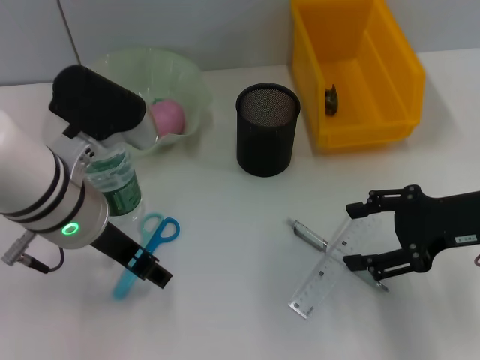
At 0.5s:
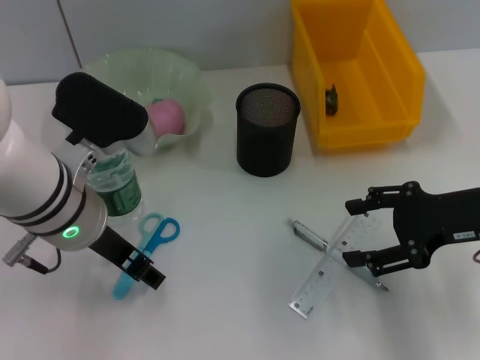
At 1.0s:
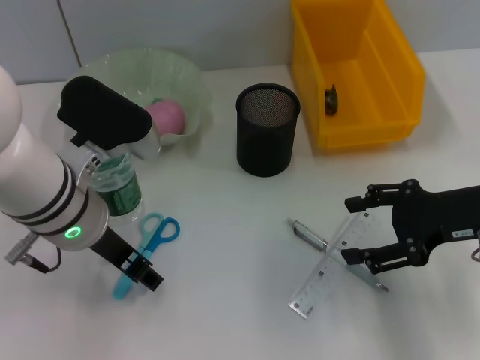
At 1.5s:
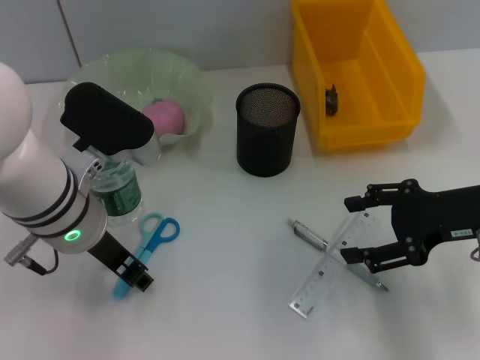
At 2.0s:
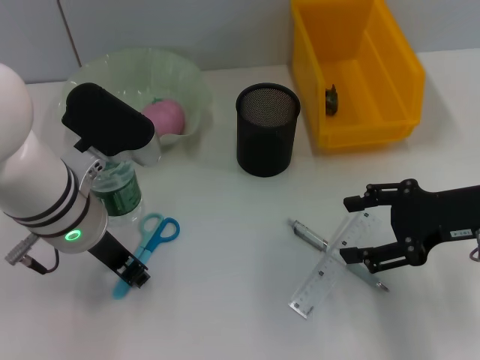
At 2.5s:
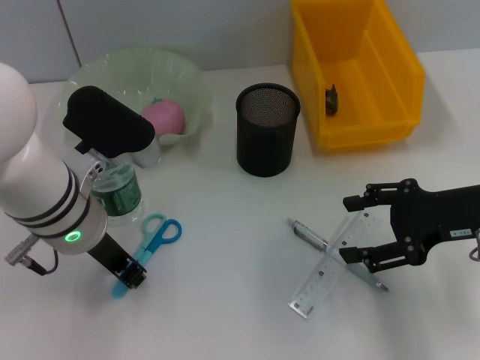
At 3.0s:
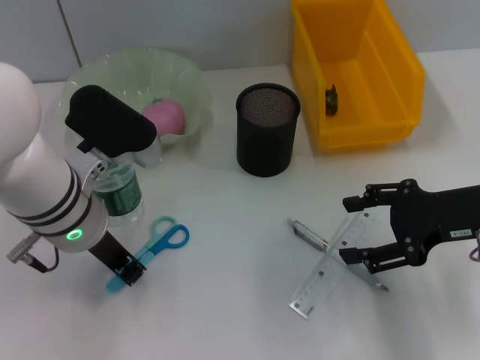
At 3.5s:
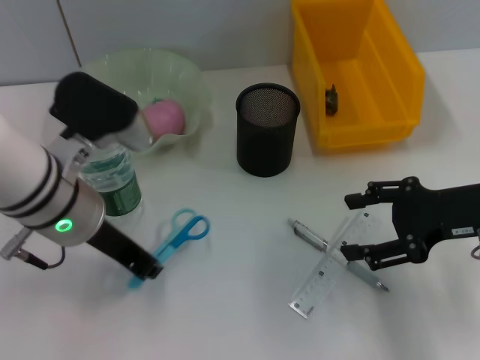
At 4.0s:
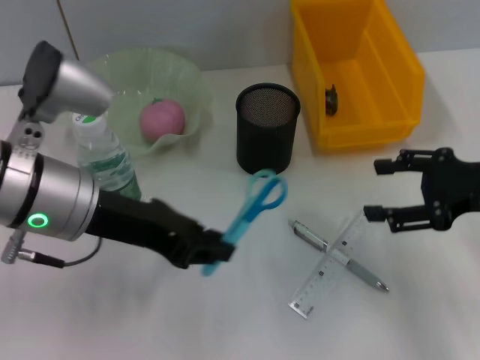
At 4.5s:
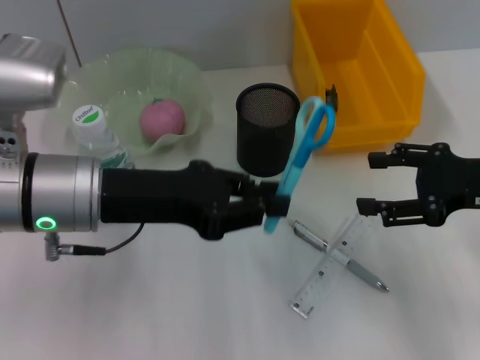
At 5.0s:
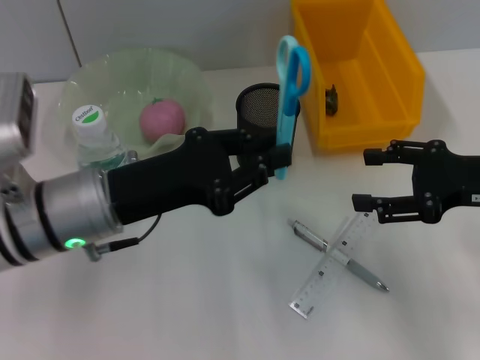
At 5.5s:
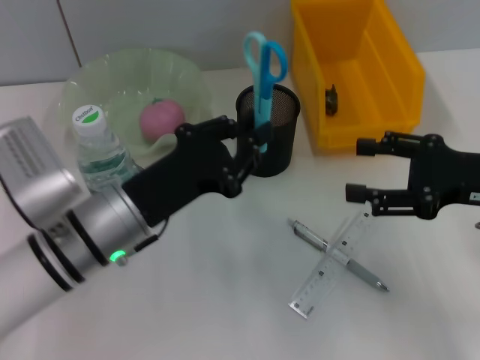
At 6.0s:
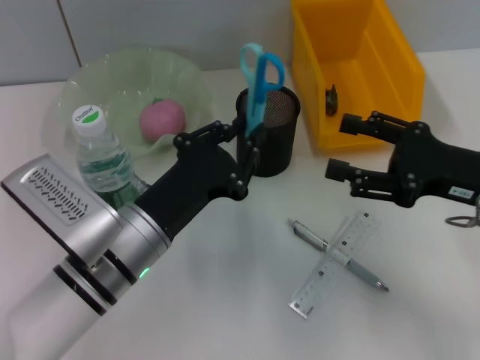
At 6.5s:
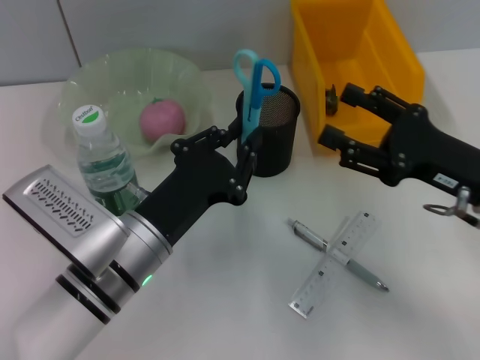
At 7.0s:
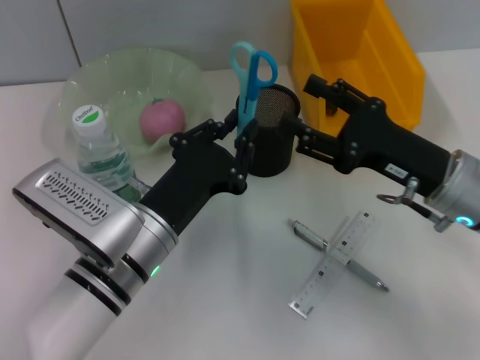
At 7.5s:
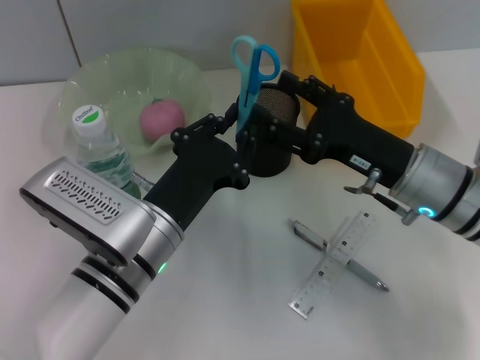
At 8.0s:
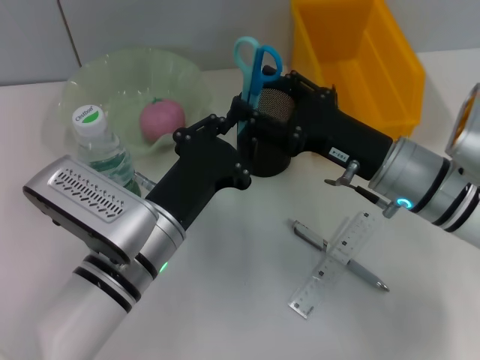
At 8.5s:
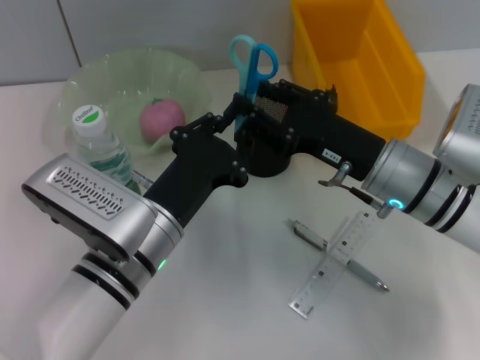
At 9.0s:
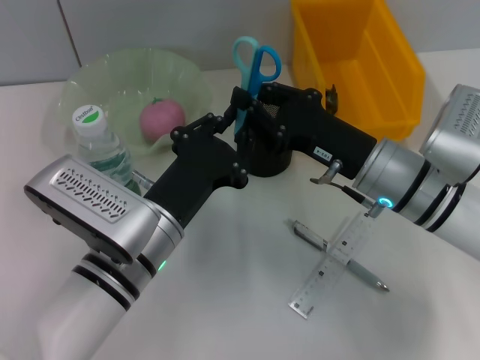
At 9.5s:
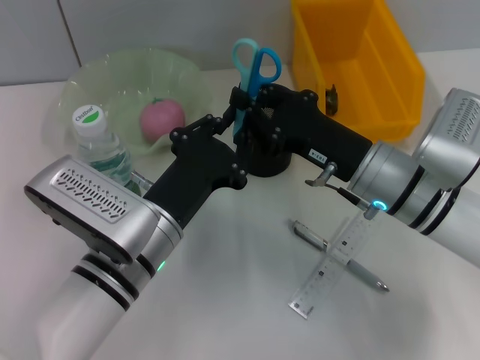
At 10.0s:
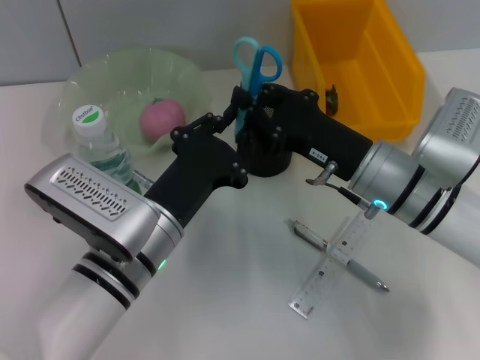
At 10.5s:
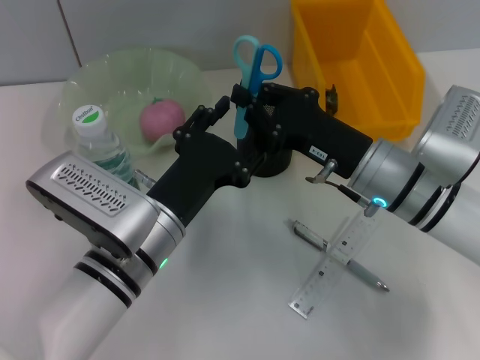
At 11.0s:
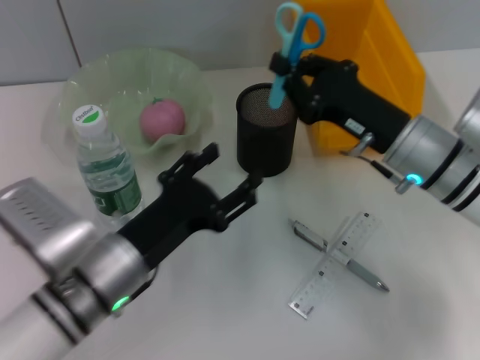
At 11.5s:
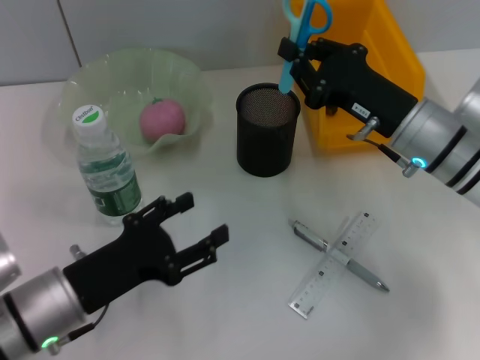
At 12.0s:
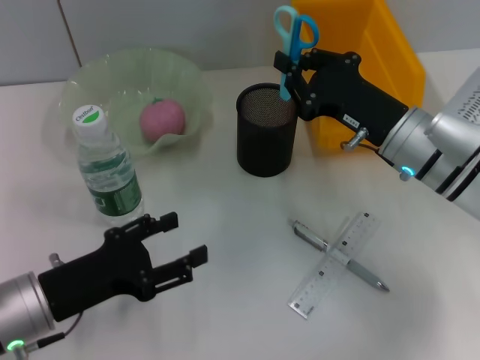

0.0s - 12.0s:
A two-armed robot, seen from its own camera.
Step, 0.0s - 3.0s: Grab the blue scissors with the left hand.
Step, 3.5s - 10.0s: Pass the blue scissors from the left hand to the right hand.
0.0s - 2.0s: The left gripper closes up.
2.0s - 4.0s: The left gripper closes up.
4.0s - 6.0s: The left gripper is displaced downward by about 10 cm.
6.0s - 8.0s: The right gripper is displaced to the left by about 10 cm.
8.0s - 10.0s: The right gripper closes up.
10.0s - 12.0s: The left gripper is displaced to the left by approximately 10 cm, and opens its fingers.

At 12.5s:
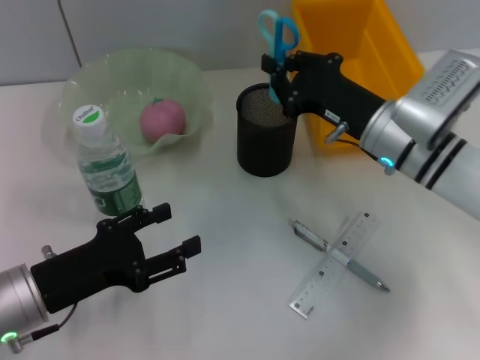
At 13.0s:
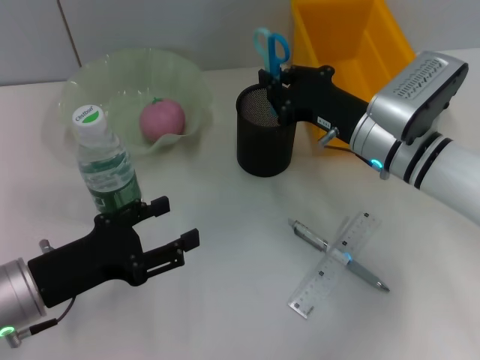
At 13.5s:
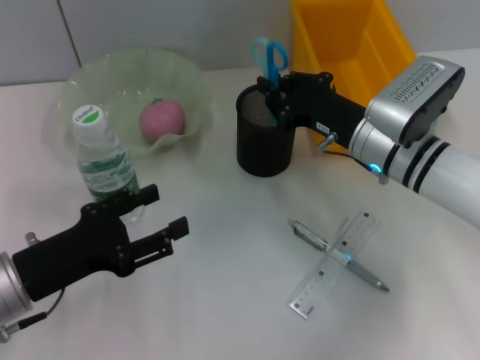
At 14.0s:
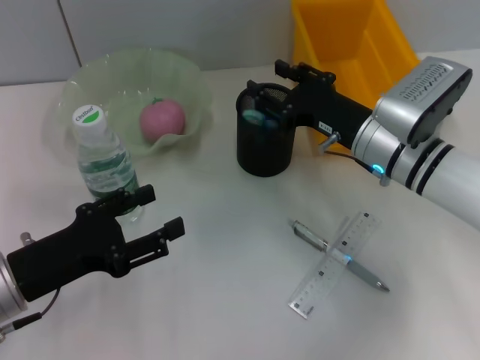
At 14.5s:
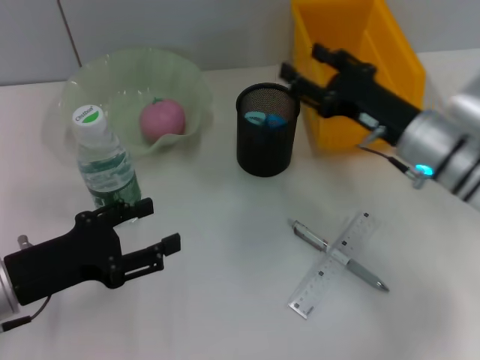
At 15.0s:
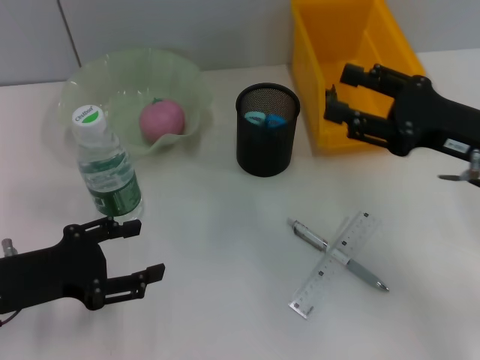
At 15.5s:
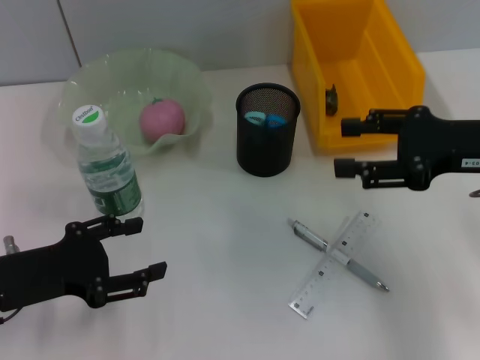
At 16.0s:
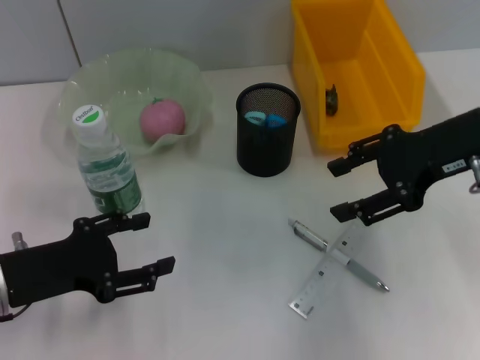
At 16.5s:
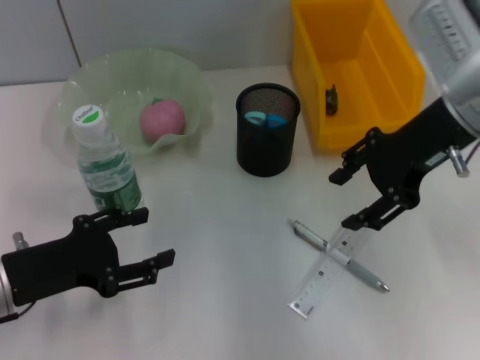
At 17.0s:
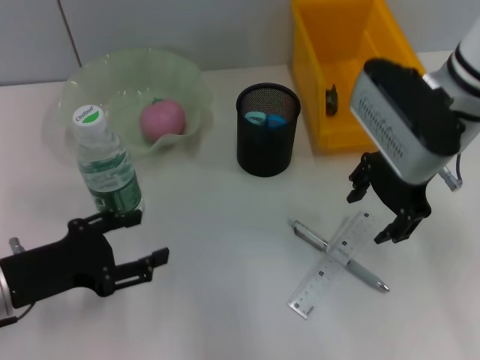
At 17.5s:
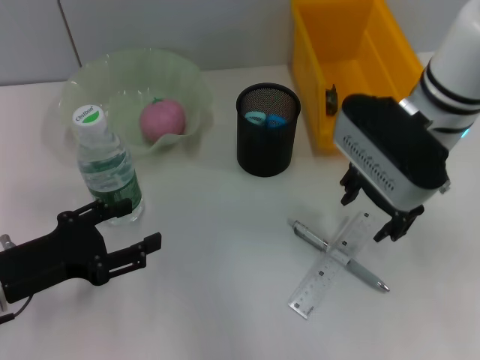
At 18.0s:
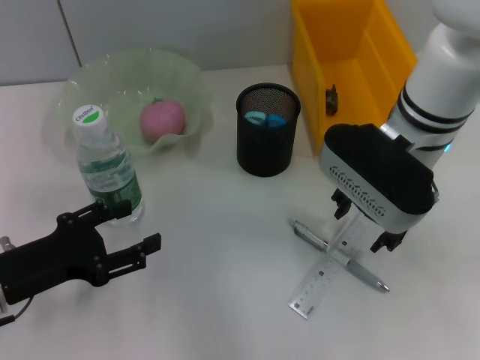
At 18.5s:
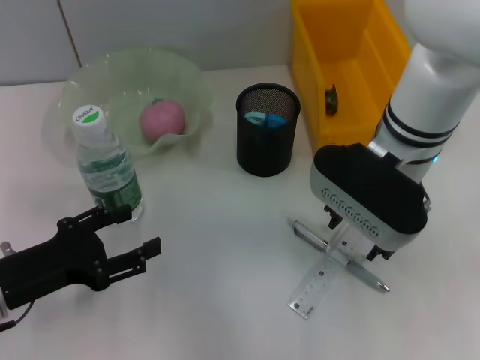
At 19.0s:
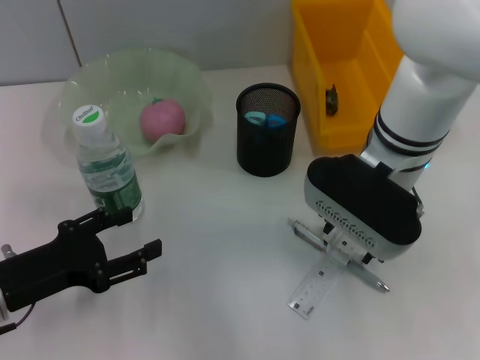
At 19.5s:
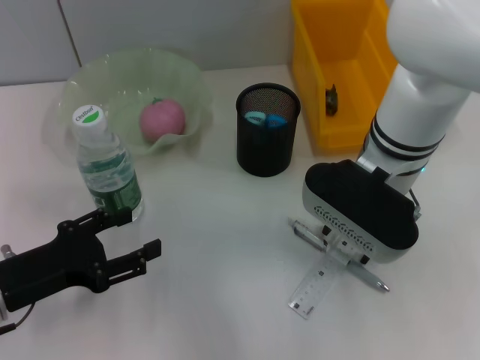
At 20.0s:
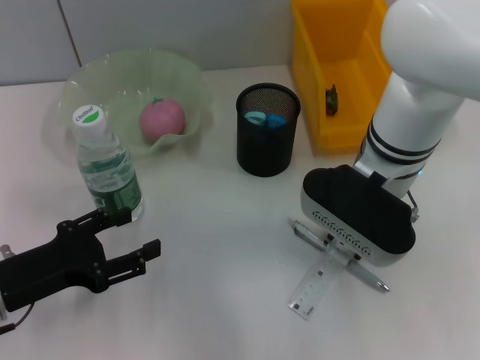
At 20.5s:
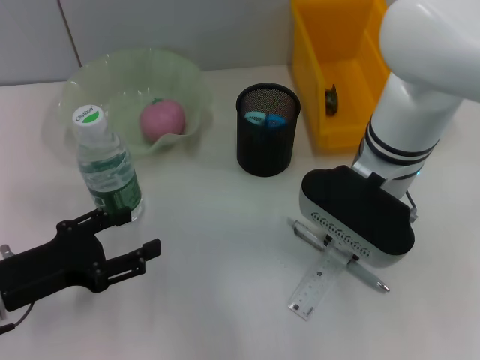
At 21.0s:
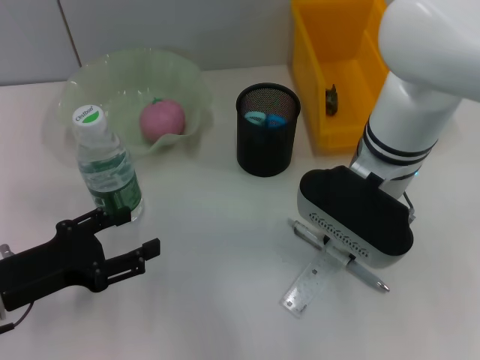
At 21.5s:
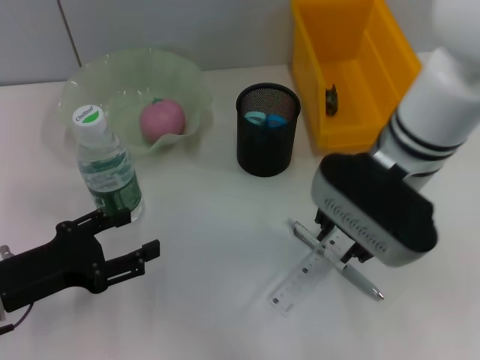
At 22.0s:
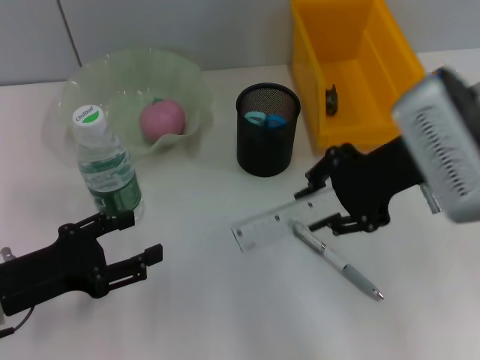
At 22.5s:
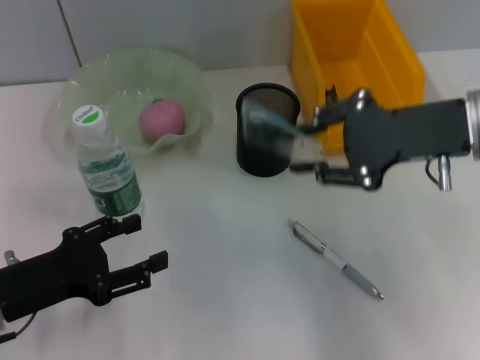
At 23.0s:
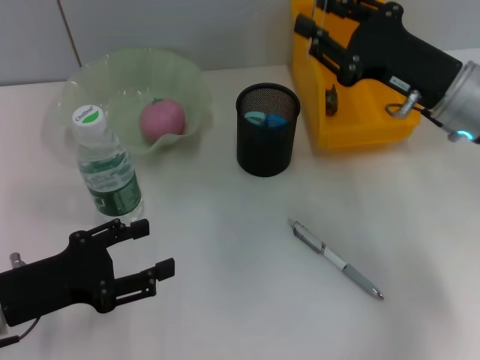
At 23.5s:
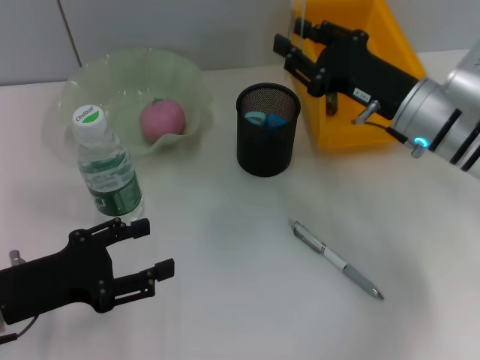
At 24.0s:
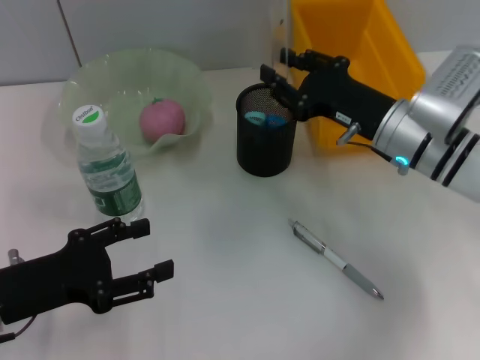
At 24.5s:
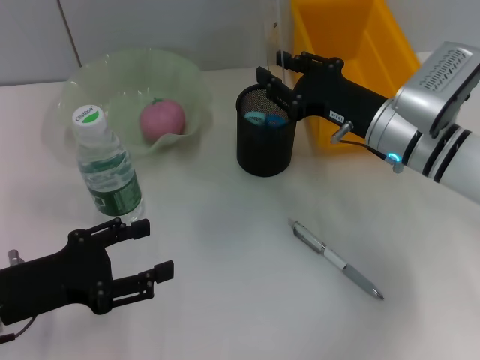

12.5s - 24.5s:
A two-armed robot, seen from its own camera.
Step, 14.0s - 20.5s: Grab the ruler with the right hand.
12.5s - 14.5s: The right gripper opens.
14.5s - 16.5s: The right gripper travels upward by about 15 cm.
16.5s - 18.5s: The right gripper shifts about 10 cm to the left and downward.
18.5s - 20.5s: The right gripper closes.
20.5s - 22.5s: The right gripper is displaced to the right and upward by approximately 10 cm.
22.5s - 24.5s: The right gripper is displaced downward and forward by about 10 cm.

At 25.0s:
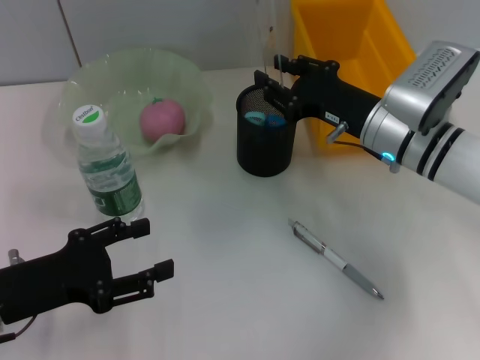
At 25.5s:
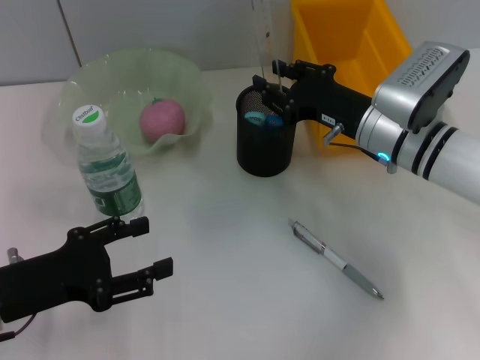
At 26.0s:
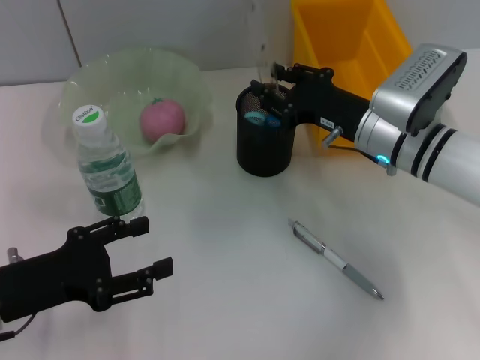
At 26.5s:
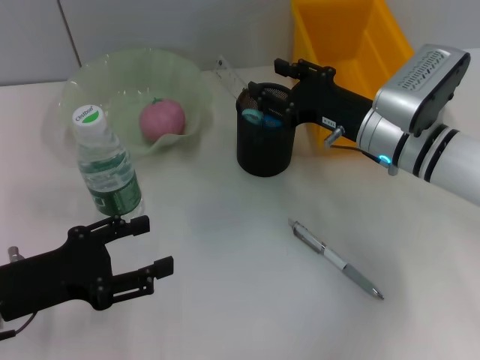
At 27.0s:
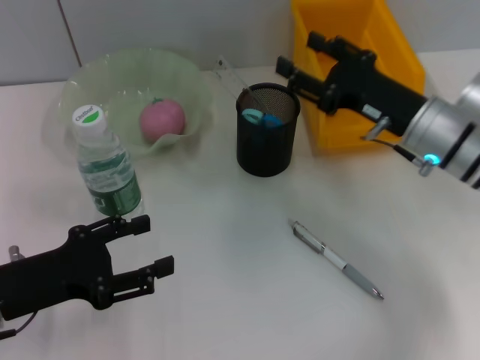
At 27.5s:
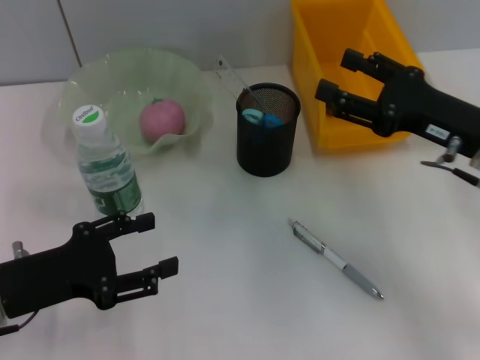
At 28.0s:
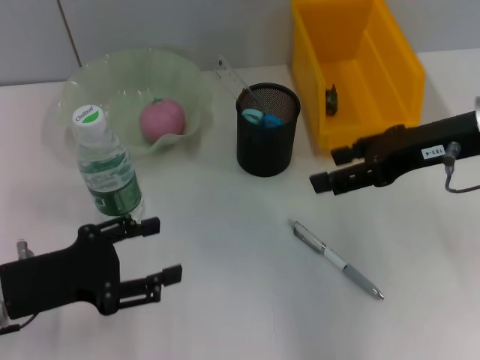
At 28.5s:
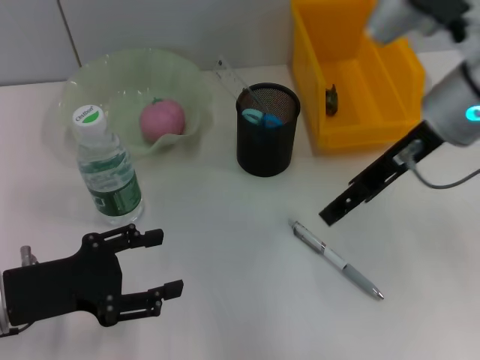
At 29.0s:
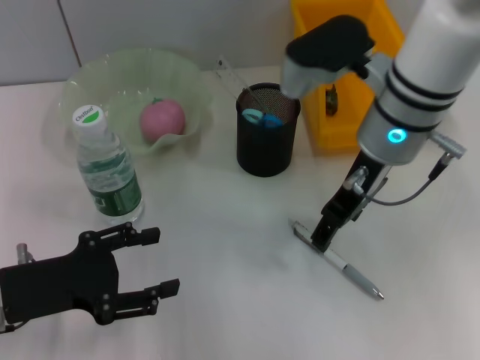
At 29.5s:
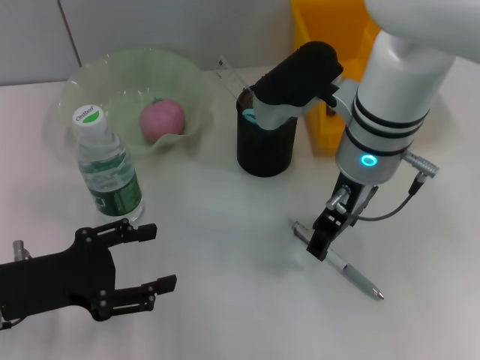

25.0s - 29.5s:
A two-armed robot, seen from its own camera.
25.0s - 27.0s: The right gripper opens.
27.0s - 29.5s: The right gripper goes roughly 15 cm to the left and upward.
